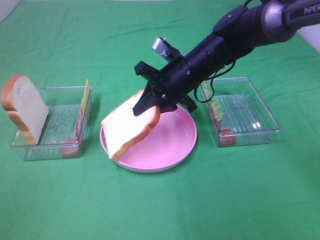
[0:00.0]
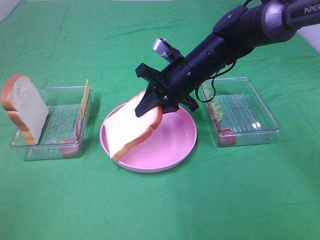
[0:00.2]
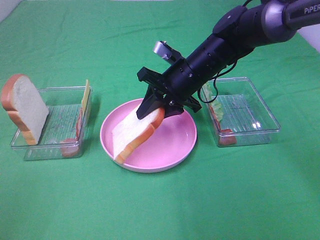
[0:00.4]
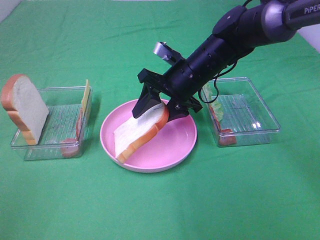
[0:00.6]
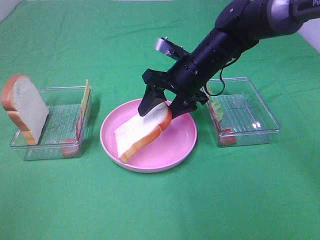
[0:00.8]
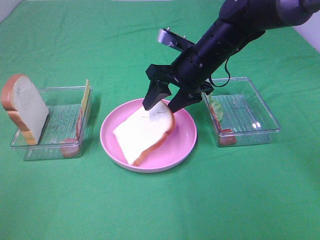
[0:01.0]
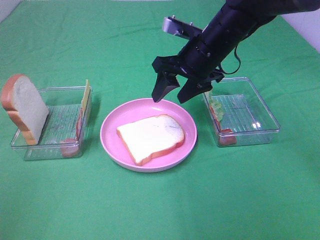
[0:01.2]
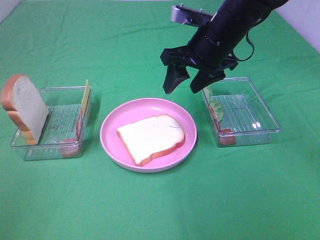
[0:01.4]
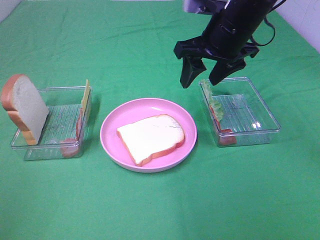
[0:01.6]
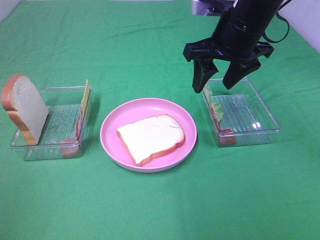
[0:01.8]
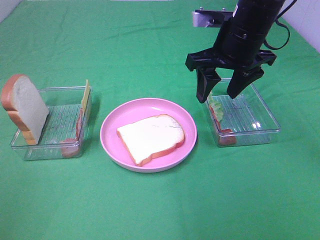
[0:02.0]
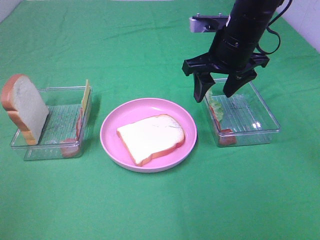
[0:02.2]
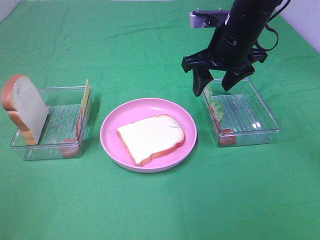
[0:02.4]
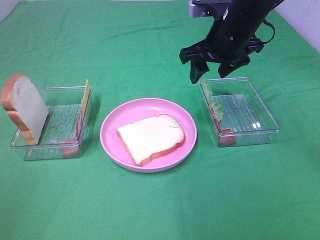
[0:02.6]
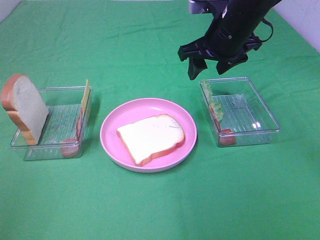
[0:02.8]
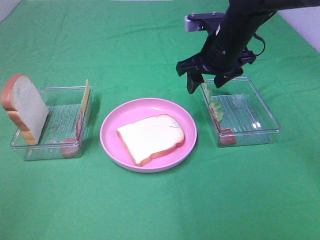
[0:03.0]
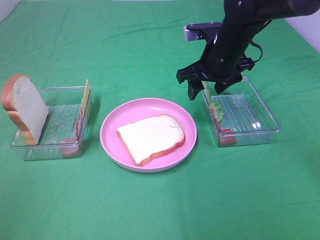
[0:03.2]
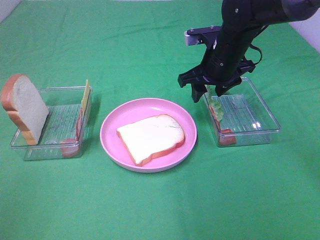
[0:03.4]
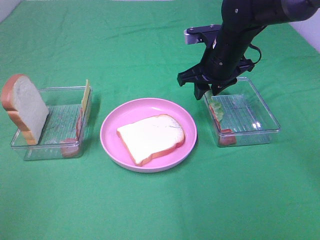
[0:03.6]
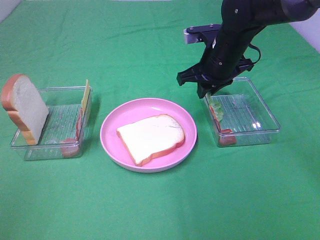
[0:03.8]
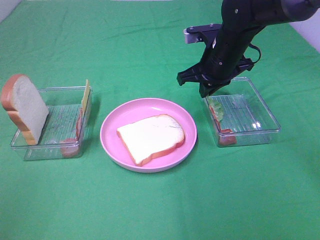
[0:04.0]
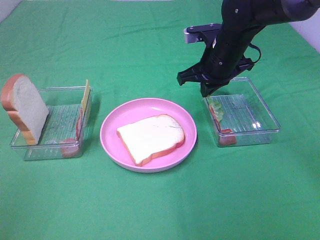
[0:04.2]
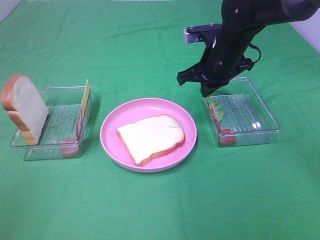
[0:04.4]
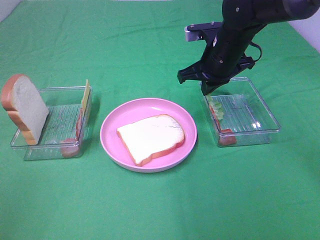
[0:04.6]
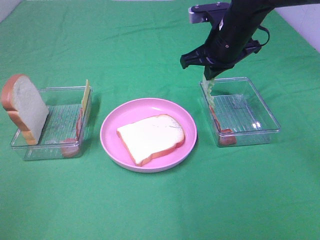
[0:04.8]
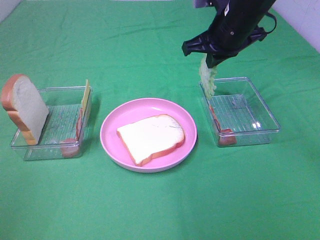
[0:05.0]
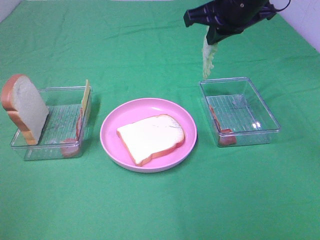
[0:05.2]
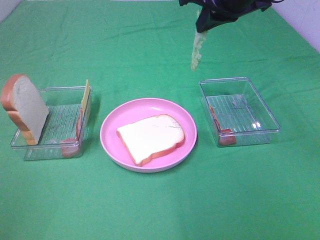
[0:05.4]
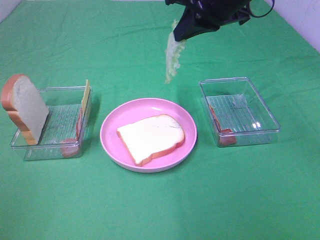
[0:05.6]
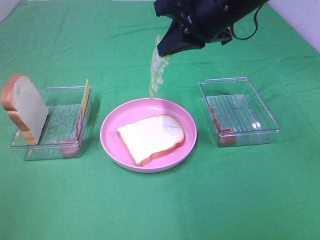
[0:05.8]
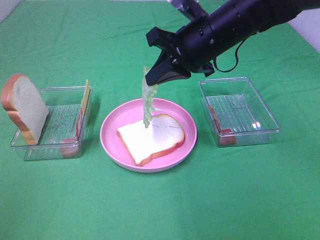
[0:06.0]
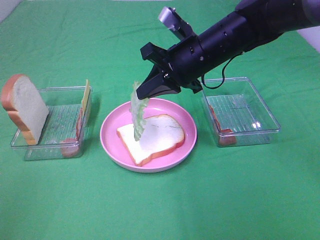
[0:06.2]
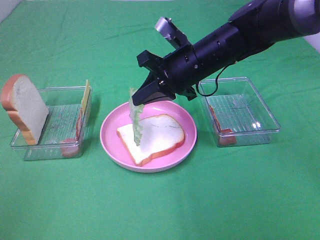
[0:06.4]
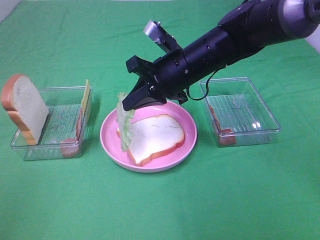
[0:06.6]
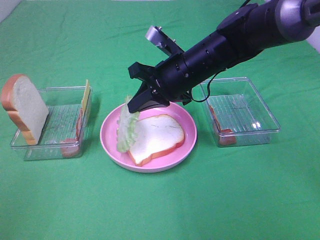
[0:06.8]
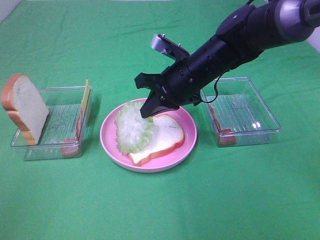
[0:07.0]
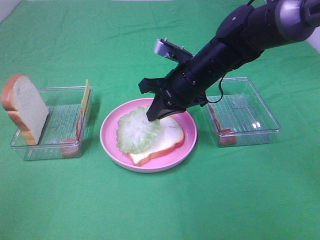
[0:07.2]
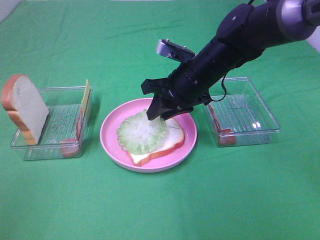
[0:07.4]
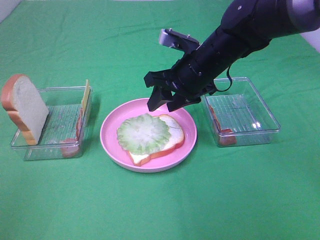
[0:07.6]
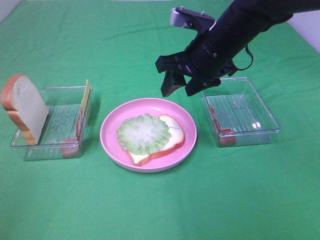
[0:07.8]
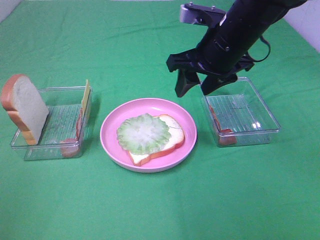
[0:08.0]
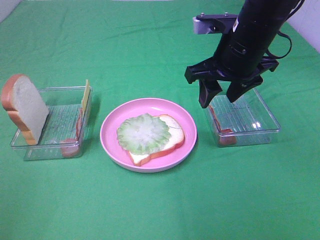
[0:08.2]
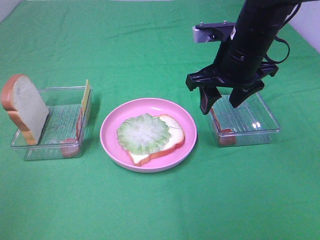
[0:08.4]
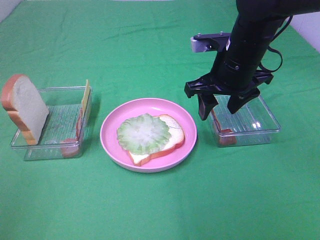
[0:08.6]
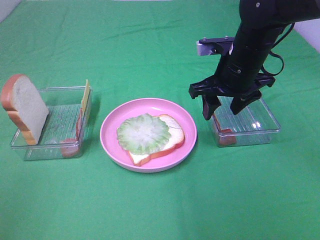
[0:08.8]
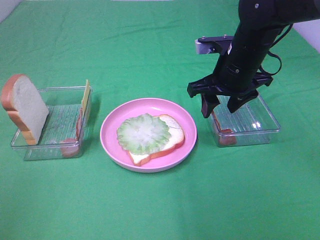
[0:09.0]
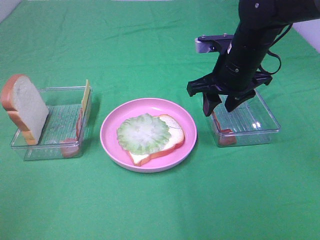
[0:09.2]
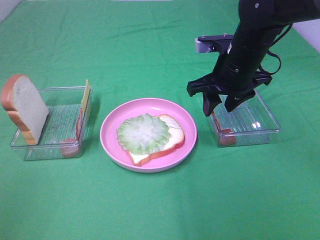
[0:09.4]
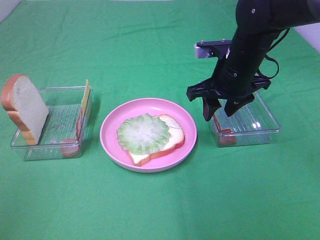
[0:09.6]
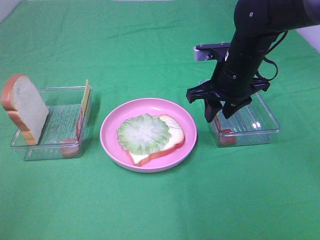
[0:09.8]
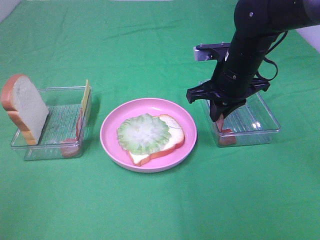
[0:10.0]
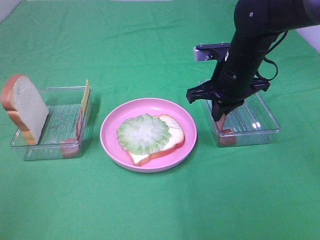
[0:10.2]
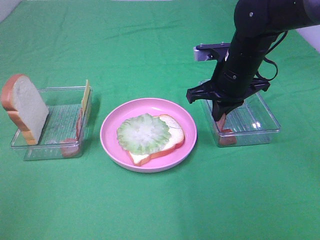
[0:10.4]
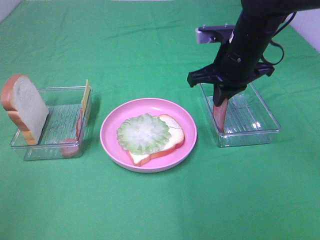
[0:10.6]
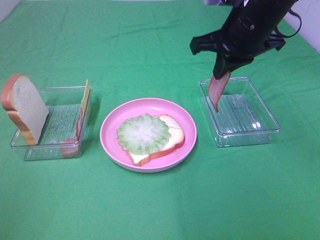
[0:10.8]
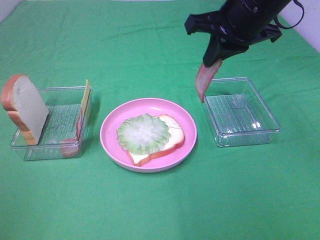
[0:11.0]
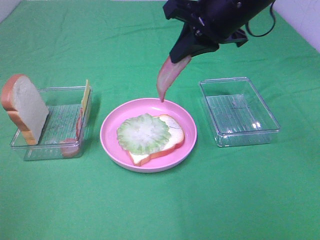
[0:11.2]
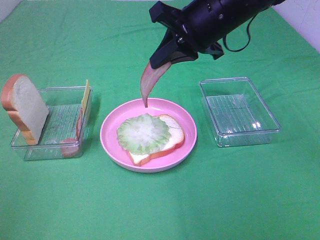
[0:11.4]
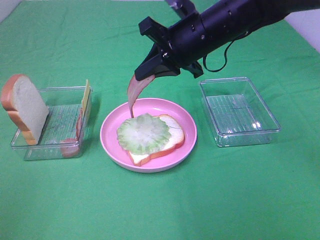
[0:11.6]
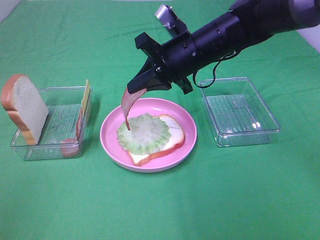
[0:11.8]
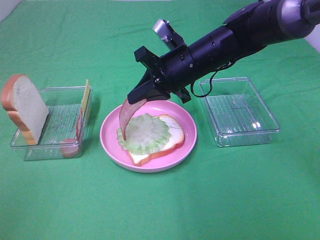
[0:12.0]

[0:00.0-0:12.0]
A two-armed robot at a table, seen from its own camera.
Task of the whole recording: Make sandwiches.
Step, 1.4 to 4.4 s: Right hand:grab the lettuce slice.
Step, 4.6 to 7.6 s: Right hand:place the lettuce slice on the bread slice.
Step, 7.8 to 10.6 s: Right hand:grab the bacon.
0.0 to 1.6 s: The right gripper goes roughly 10 cm upward and to the right, and opens up.
1.6 to 3.0 s: The right gripper shifts approximately 5 cm downward.
3.0 to 4.4 s: The right gripper closes its fingers.
4.4 to 6.0 s: The right gripper is displaced backward by roughly 5 cm, and goes upward and returns, approximately 15 cm each way.
6.0 to 7.6 s: The right gripper opens its fingers.
7.6 to 9.0 s: The right gripper heads to the right, covering about 5 cm.
9.0 to 10.4 s: The right gripper closes its fingers.
10.4 to 12.0 s: The right gripper goes roughly 5 cm to the left, and reaches about 10 cm upward, then returns.

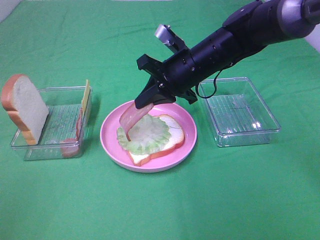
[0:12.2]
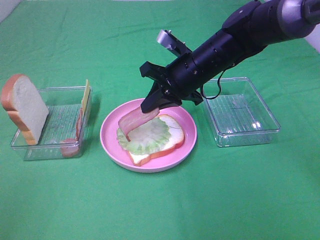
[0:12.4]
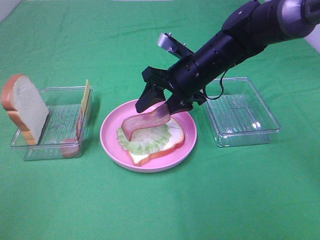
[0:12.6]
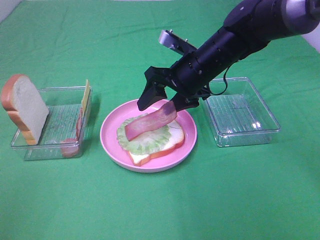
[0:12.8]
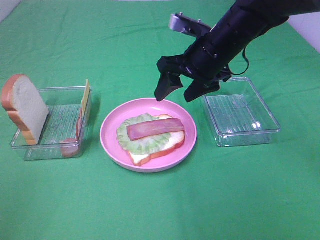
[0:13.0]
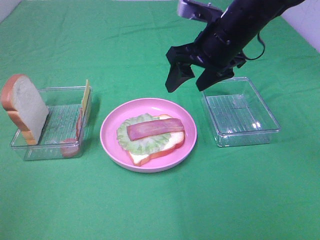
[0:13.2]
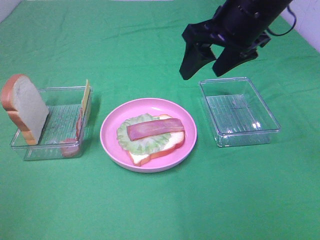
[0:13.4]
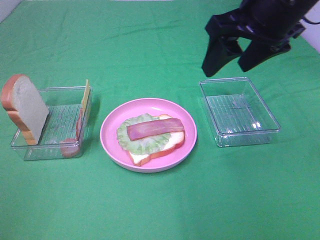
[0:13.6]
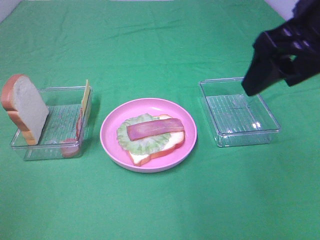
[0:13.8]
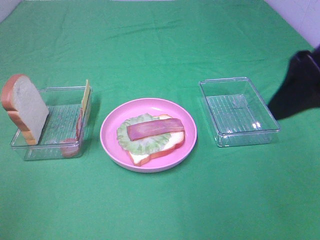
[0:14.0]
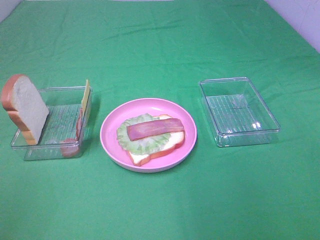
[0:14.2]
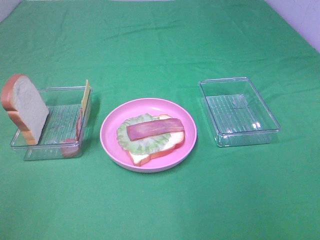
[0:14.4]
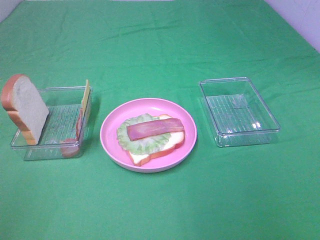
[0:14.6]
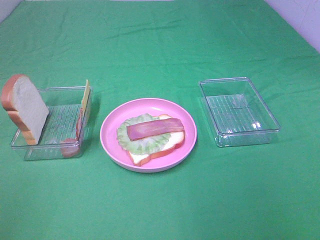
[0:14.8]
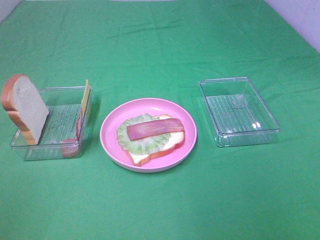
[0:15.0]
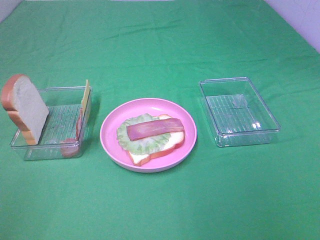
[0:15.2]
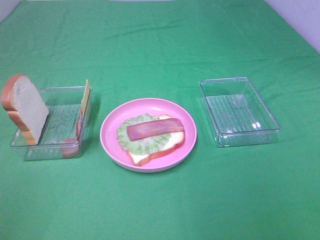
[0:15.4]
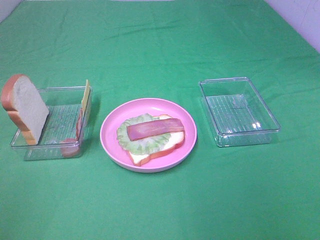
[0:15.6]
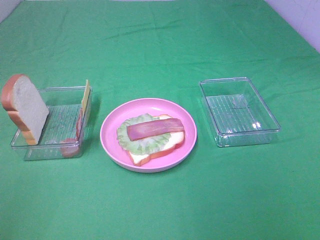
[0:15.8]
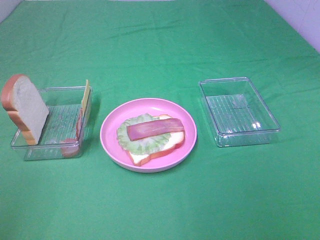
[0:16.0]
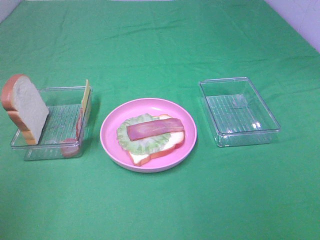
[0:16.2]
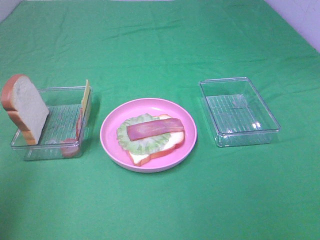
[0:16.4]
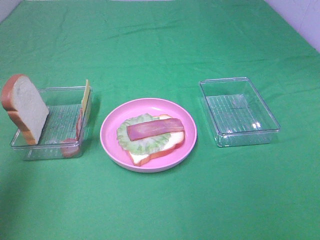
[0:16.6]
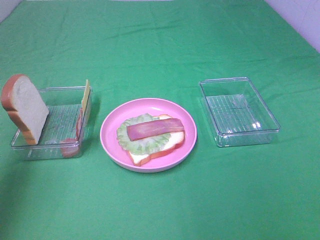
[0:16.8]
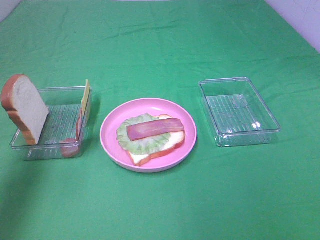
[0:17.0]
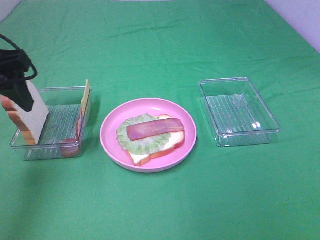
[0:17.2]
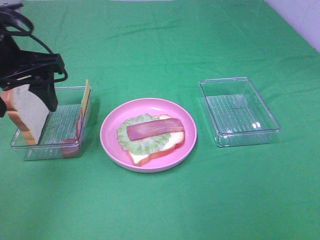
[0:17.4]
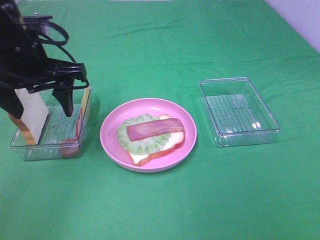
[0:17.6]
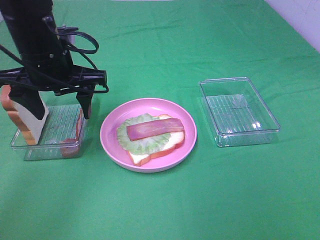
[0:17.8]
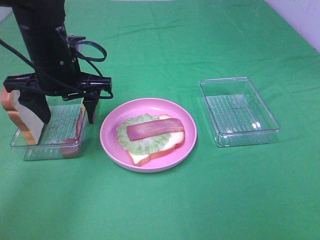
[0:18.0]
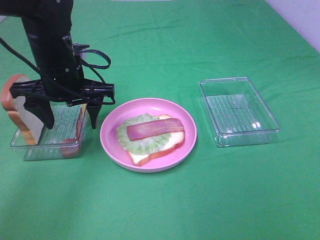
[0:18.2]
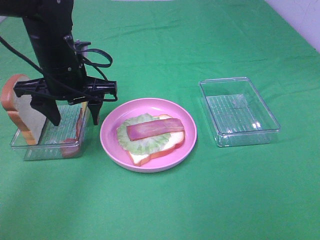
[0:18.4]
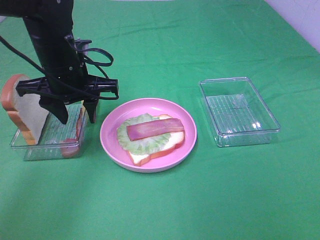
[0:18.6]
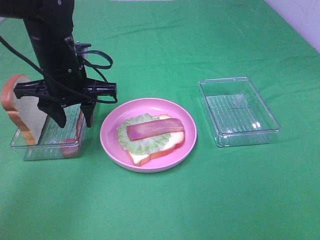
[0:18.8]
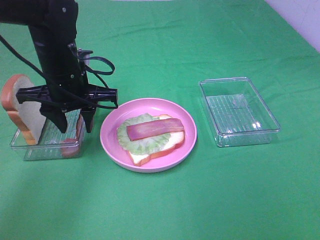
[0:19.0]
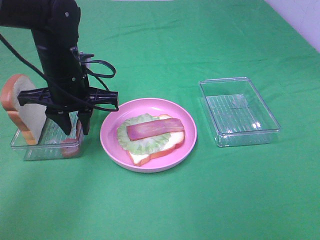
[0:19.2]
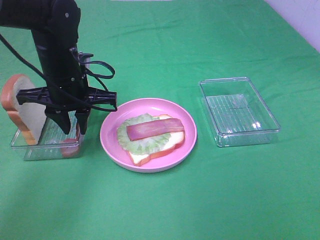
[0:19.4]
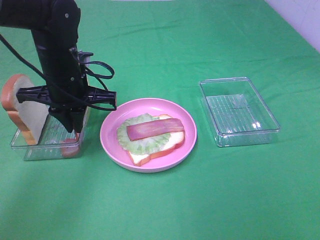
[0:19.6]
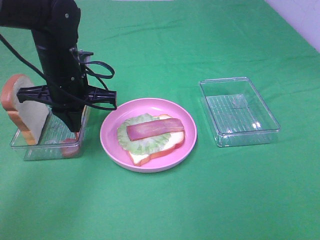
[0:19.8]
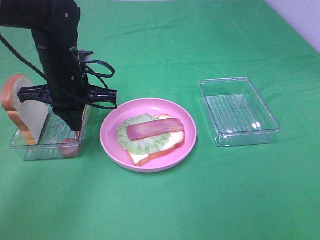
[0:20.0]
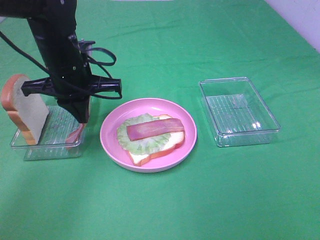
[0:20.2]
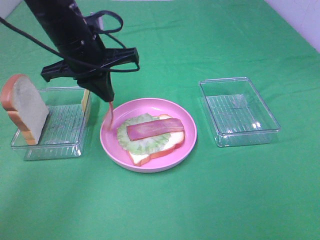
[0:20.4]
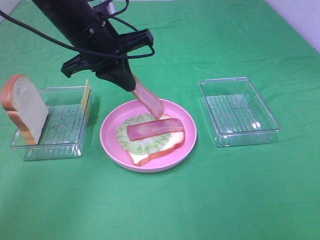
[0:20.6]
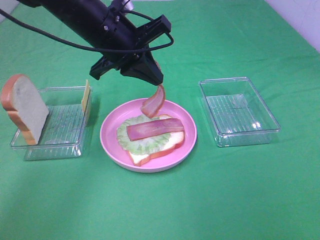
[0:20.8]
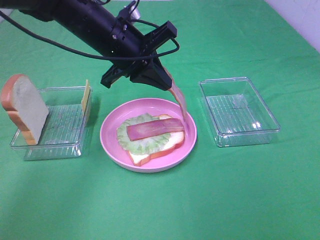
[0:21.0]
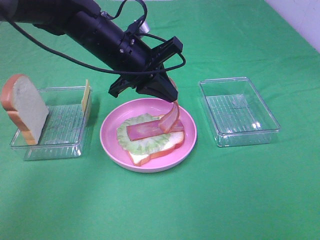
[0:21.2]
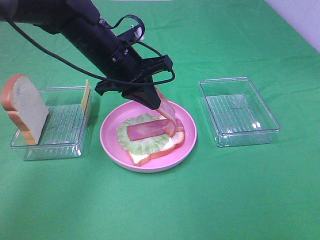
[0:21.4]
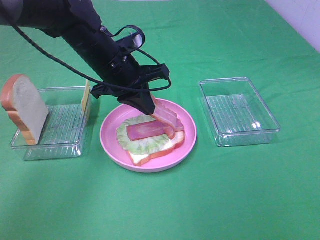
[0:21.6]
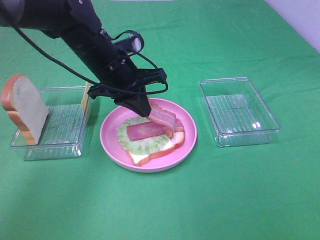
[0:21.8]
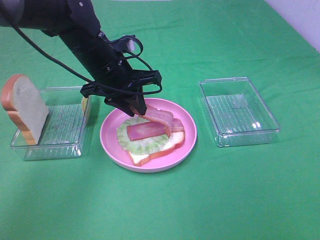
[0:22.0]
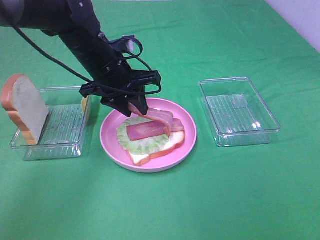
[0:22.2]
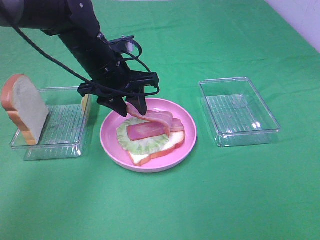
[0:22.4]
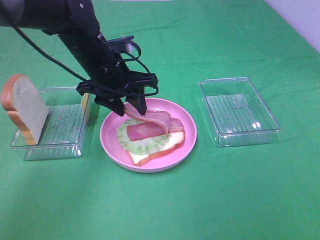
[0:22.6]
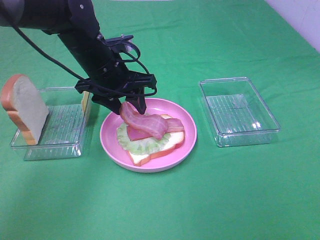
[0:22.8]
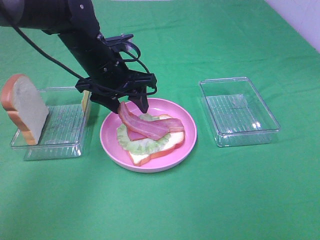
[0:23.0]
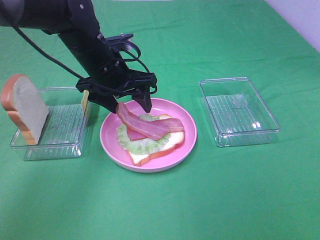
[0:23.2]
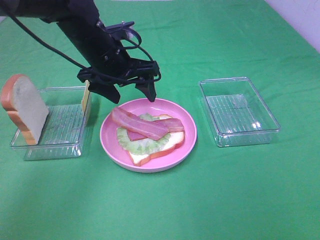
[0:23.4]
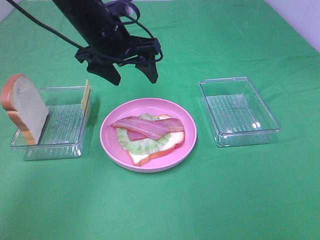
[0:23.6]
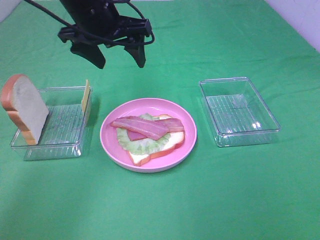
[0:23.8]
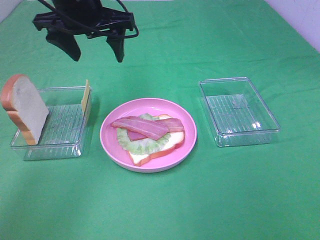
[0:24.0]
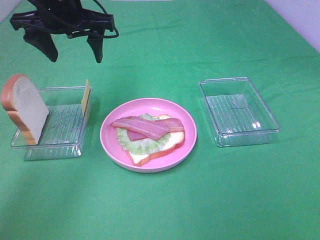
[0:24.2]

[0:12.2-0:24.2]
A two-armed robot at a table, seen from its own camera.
Task of the whole recording: Make sandwiches.
Step, 13.2 to 20.2 s: Left hand:grab the bacon.
Step, 20.4 to 23.6 s: Left hand:place bacon on bacon.
12.2 to 13.8 s: The right gripper heads upward, backward and to the right, covering approximately 25 cm, and opens.
13.8 to 15.2 s: The right gripper heads backward and to the right, covering about 25 cm.
15.2 to 16.6 s: The left gripper heads forward and upward, covering about 20 cm.
16.6 to 18.2 s: The left gripper shifts roughly 30 cm forward, to the right and downward.
18.2 to 19.8 s: The left gripper closes its fingers.
19.8 to 21.2 s: The left gripper shifts some 10 cm to the right.
21.2 to 22.6 s: The left gripper opens.
22.6 to 24.2 s: The left gripper heads upward and to the left, covering approximately 10 cm.
